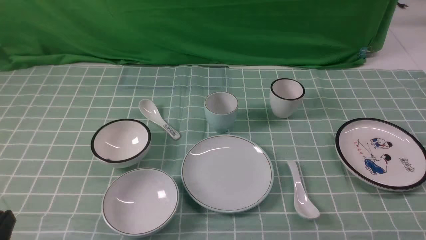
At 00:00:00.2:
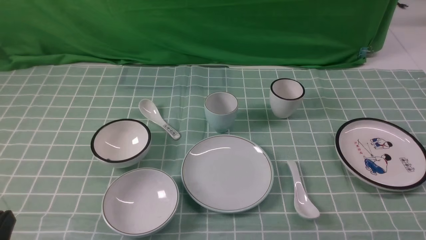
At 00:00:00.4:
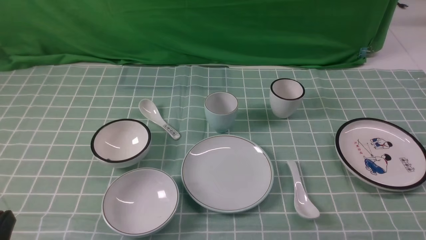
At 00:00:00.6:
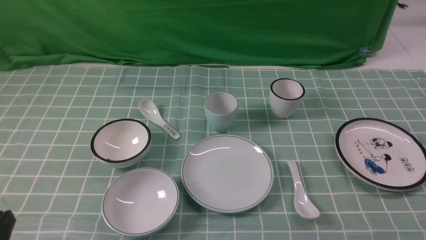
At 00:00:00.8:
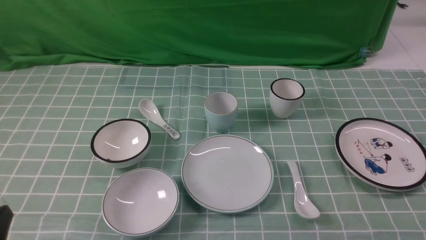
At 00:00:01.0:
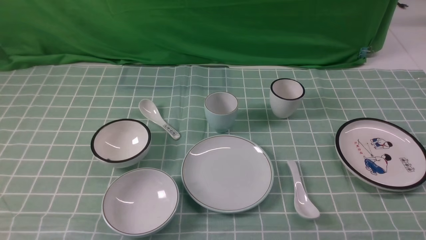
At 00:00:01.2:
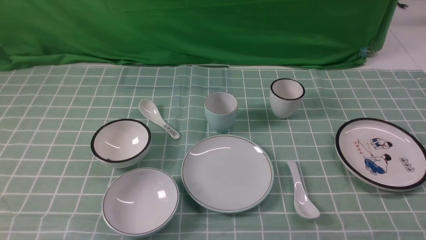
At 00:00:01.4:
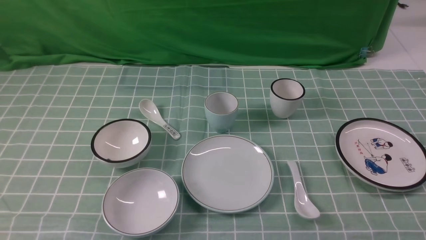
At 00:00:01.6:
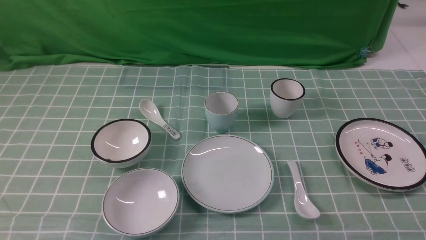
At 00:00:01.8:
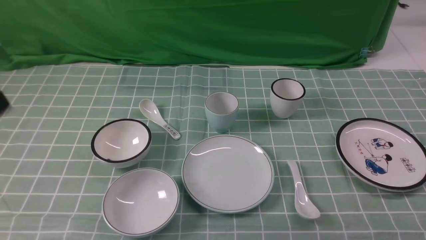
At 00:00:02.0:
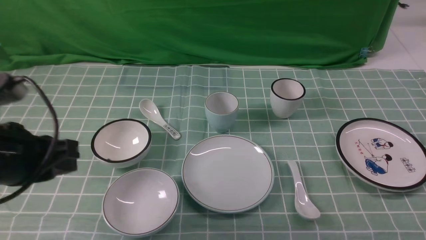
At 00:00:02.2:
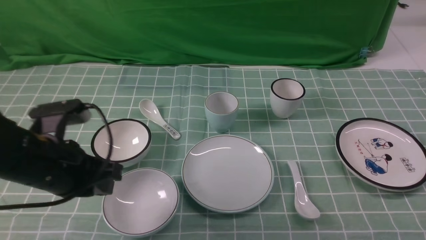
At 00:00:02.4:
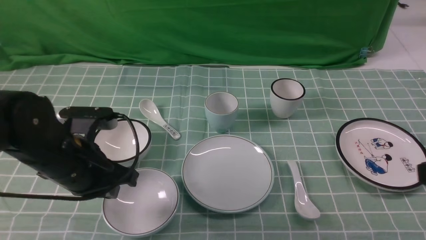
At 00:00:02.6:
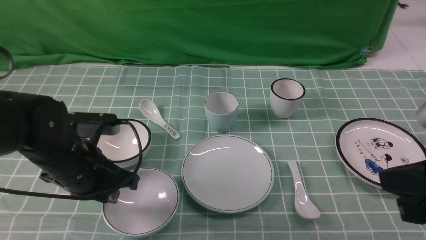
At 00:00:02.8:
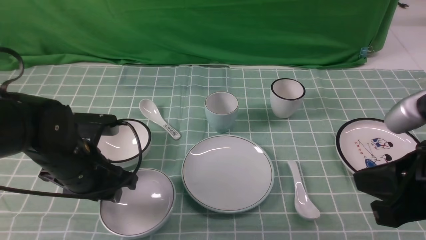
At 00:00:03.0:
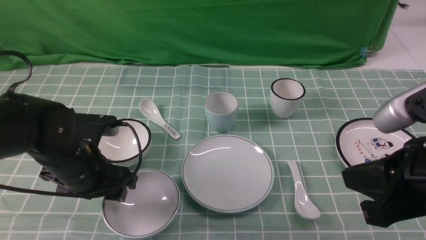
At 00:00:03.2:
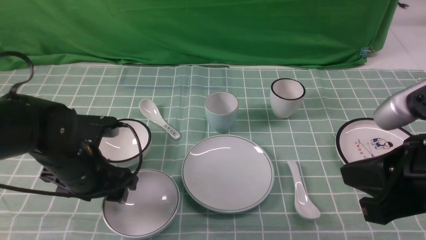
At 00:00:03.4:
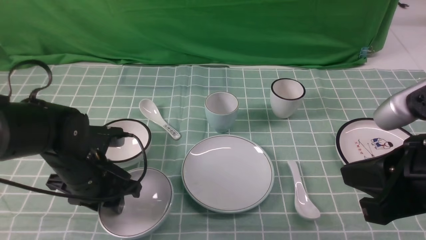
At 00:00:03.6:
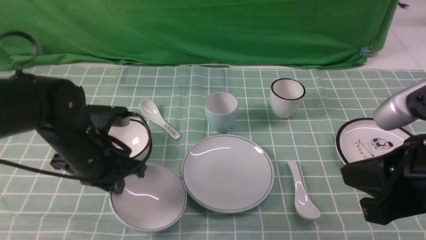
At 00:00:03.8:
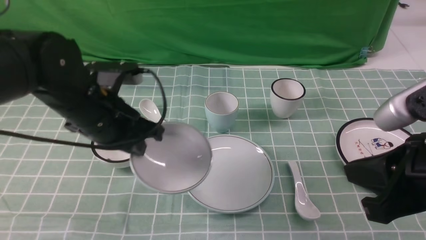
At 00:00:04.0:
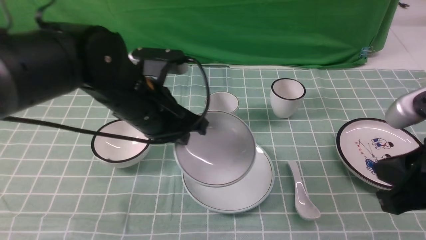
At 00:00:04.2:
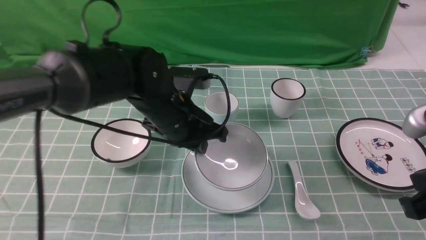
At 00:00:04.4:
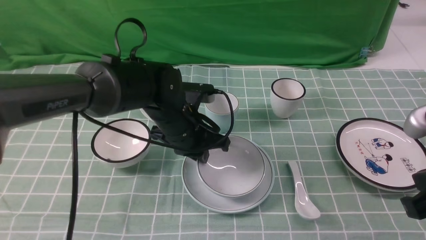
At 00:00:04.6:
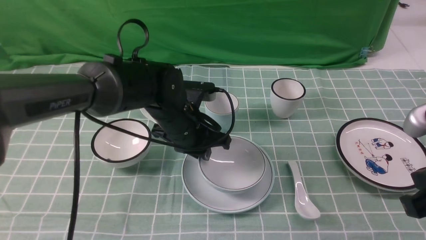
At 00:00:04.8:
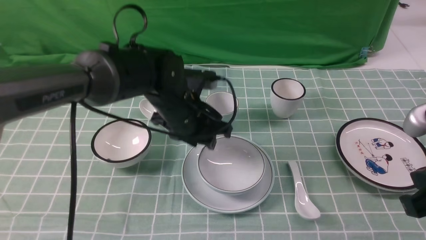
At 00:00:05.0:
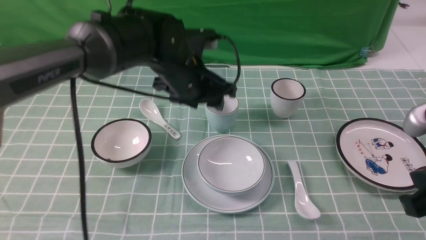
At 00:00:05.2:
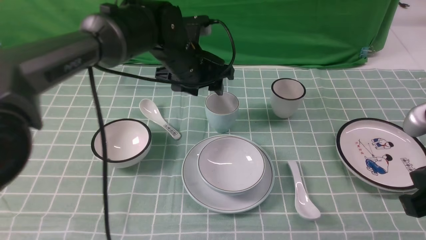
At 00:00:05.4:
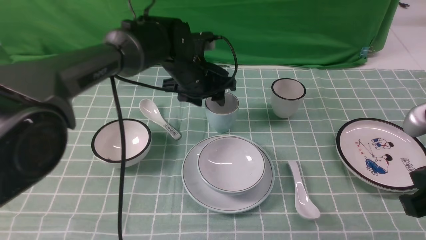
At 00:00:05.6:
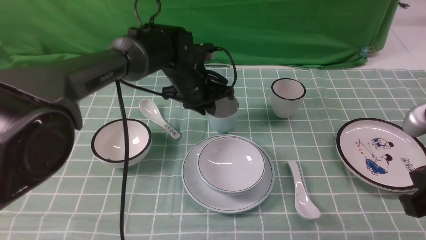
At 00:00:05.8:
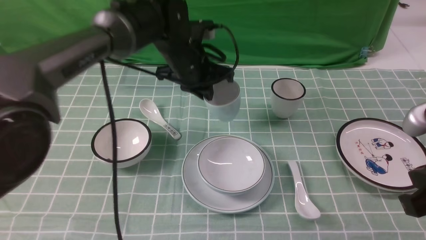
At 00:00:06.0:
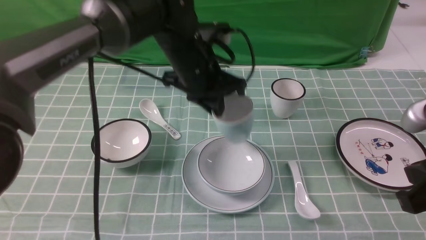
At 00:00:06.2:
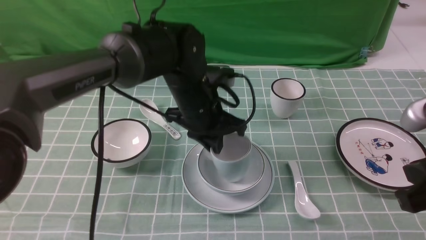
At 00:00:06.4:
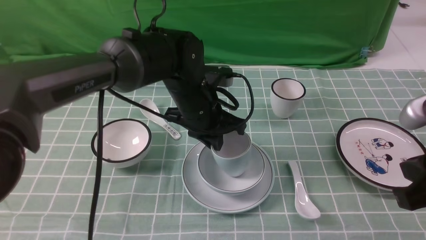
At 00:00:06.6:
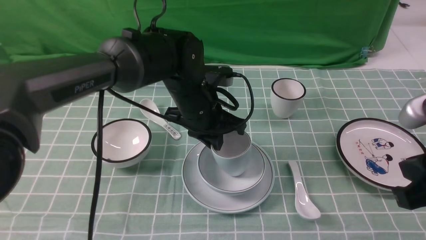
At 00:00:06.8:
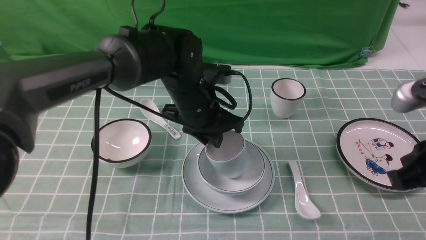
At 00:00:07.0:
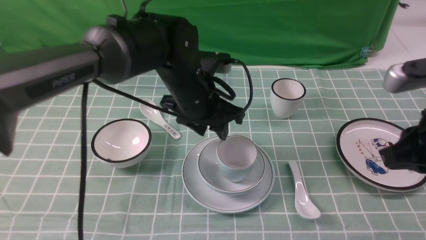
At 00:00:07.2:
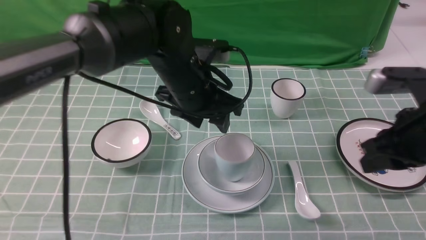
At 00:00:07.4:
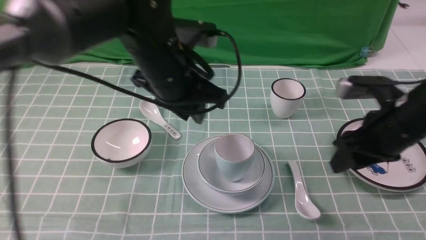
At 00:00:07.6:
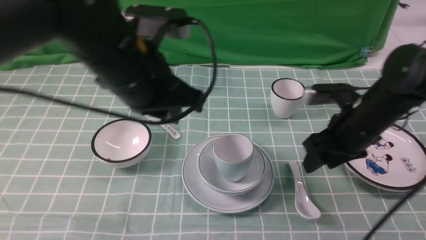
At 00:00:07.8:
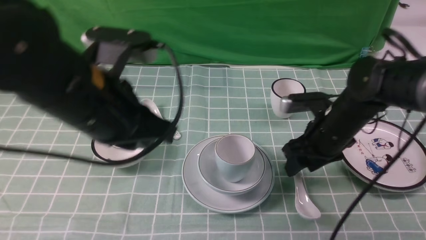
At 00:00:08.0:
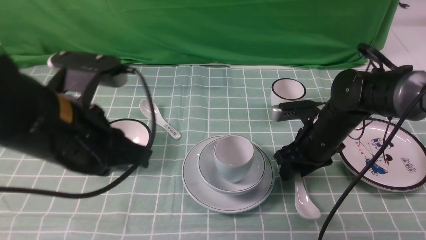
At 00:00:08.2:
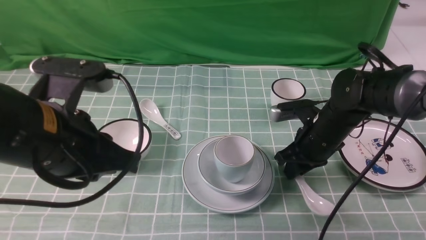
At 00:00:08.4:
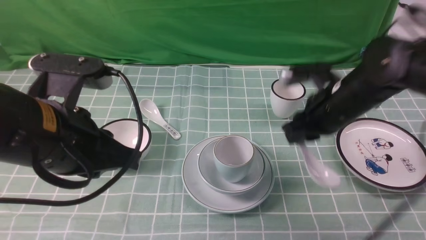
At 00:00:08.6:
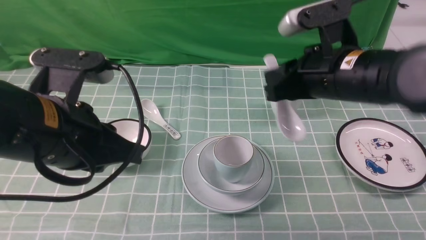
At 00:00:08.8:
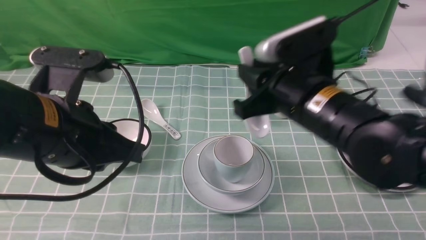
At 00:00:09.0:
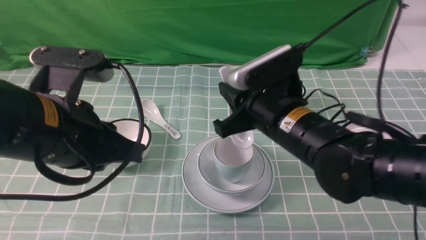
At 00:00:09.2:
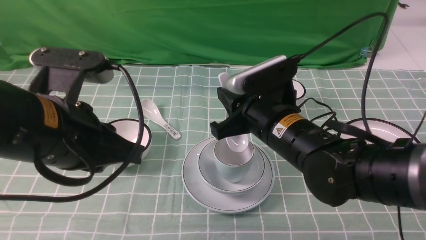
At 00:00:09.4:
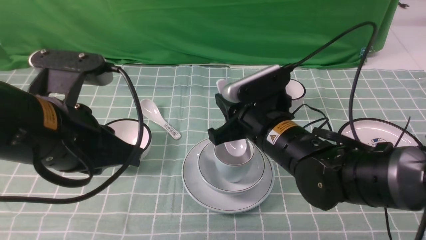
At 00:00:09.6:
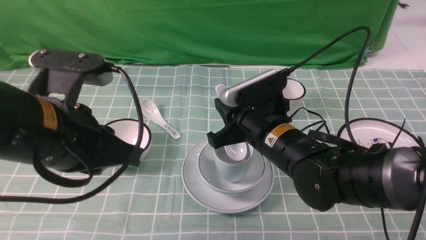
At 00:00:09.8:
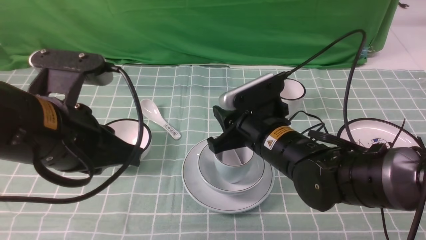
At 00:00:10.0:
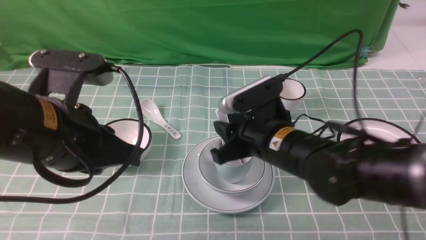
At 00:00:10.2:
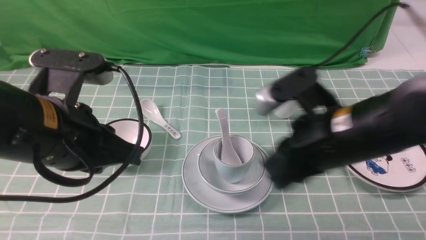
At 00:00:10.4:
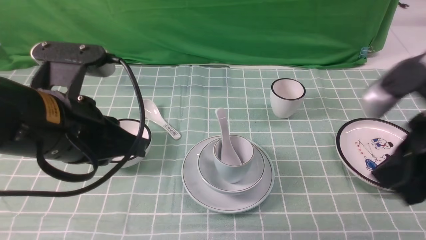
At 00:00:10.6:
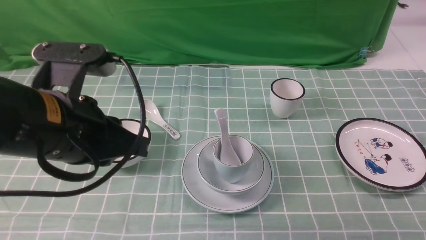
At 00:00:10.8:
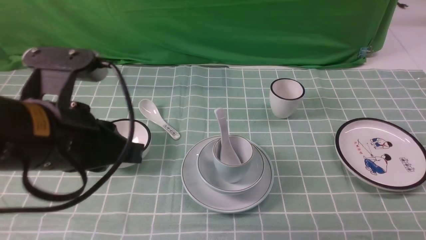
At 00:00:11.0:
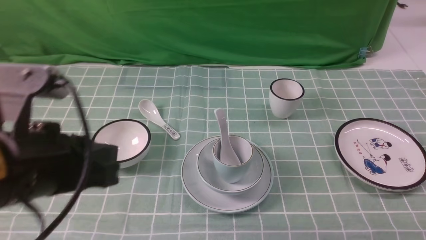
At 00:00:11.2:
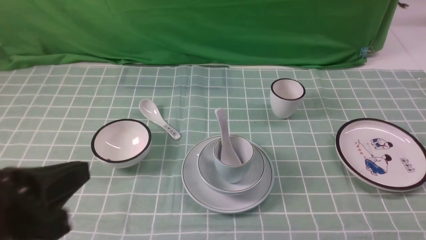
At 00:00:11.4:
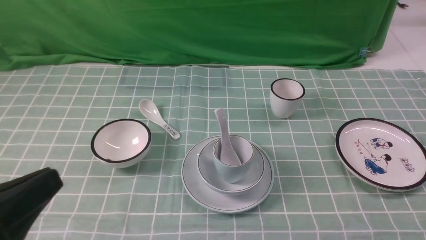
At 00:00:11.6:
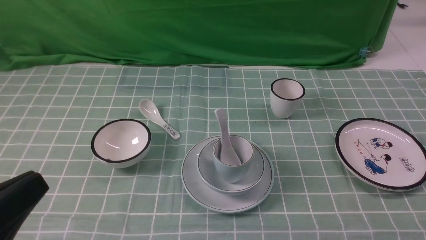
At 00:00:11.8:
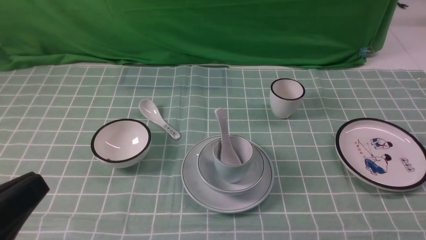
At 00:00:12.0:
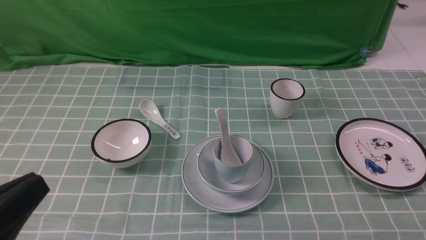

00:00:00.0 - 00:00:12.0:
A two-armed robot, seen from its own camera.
Task of the whole recording: place the bowls on the plates on the blue tablecloth, put the cups on the bowls, and place the spoons in the cups.
Step, 00:00:00.0 - 00:00:03.4: Grasp the bowl with the left gripper.
Step, 00:00:03.6 - 00:00:04.6: Place the bowl on the plate with the left gripper.
Step, 00:00:04.8 - 00:00:05.6: Grasp the cup with the left gripper.
Step, 00:00:05.8 - 00:00:06.8: Place the cup on the bowl with the left gripper.
Step, 00:00:07.0 - 00:00:08.0: Grasp the spoon with the right gripper.
Step, 00:00:08.2 - 00:00:09.8: Place the spoon on the cup with the right gripper.
00:00:01.6 - 00:00:03.0: The left gripper travels forward and downward by some 25 cm, and opens its fingers. The right gripper is displaced to the left, upward and forward by approximately 20 cm, and closes its fingers.
00:00:03.0 - 00:00:04.4: The left gripper is displaced to the right and forward by some 15 cm, and closes its fingers.
00:00:04.4 - 00:00:06.0: The left gripper goes some 10 cm forward, and opens and closes again.
00:00:06.0 - 00:00:07.6: The right gripper moves forward and downward, approximately 20 cm, and opens up. The left gripper heads backward and upward, covering about 15 cm, and opens and closes again.
00:00:07.6 - 00:00:09.0: The left gripper heads backward and to the left, covering approximately 15 cm. Meanwhile the right gripper travels to the left by approximately 10 cm, travels downward and back again, about 5 cm each way, and closes.
00:00:09.0 - 00:00:10.4: The right gripper moves to the right and backward, some 10 cm.
00:00:10.4 - 00:00:12.0: The left gripper is displaced backward and to the left by roughly 15 cm, while the right gripper is displaced backward and to the right by approximately 25 cm.

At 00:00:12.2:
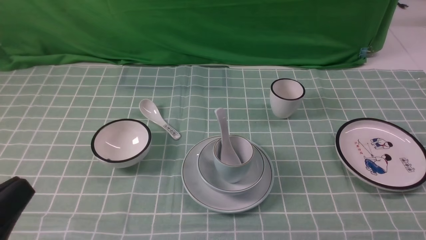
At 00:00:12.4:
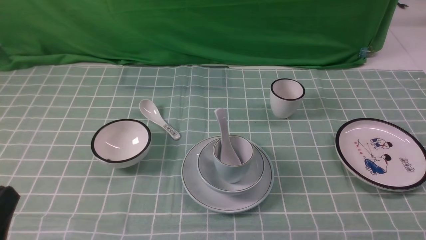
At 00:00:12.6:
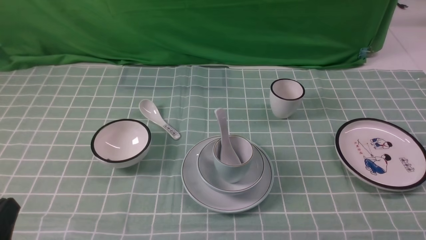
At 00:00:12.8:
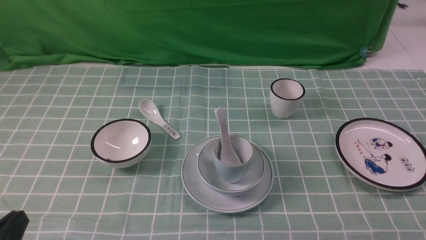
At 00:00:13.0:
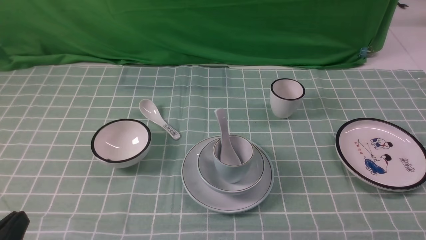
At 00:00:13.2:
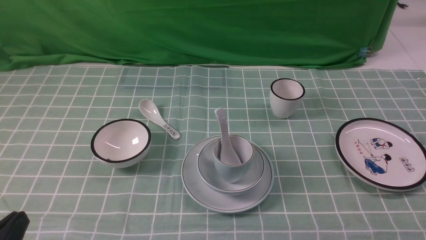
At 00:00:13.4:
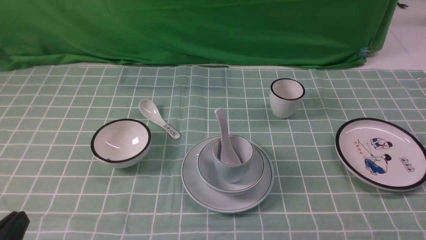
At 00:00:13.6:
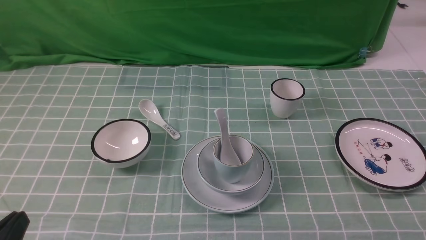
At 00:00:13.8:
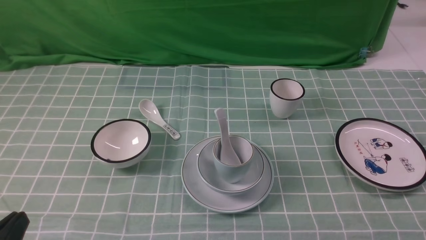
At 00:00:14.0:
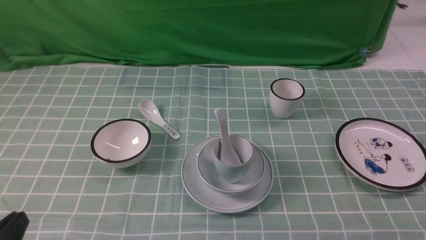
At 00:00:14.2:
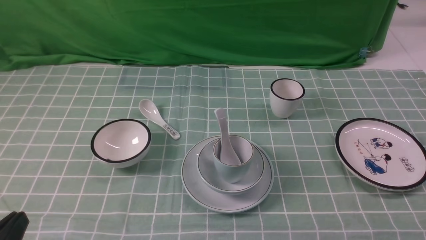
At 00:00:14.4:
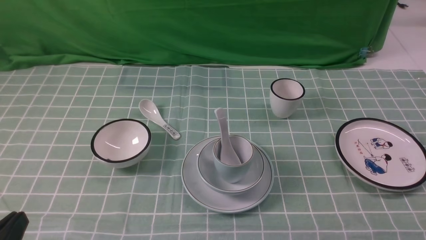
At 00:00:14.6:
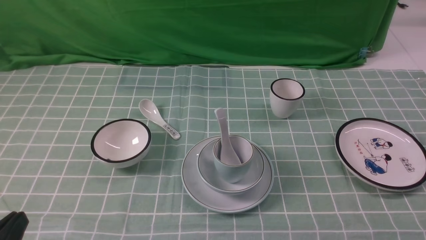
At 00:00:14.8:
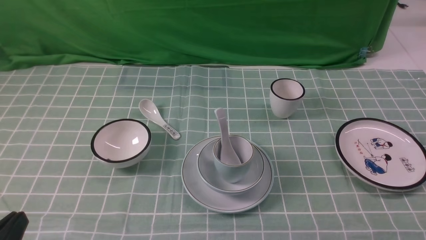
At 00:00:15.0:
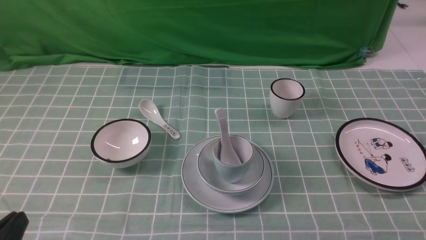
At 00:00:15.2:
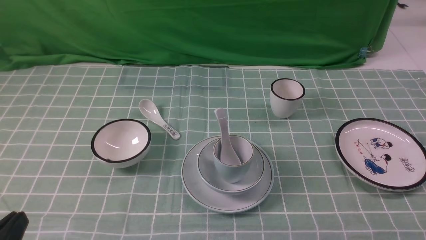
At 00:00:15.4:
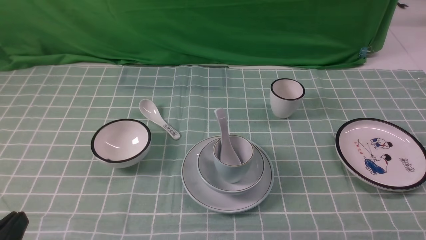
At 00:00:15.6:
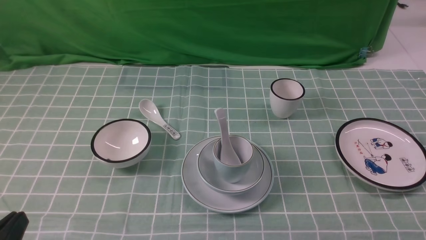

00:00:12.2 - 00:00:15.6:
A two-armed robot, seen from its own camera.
Task of the whole recording: place the bowls on the plates on the blue tablecloth, put the cups on the bowls, and place the spoons in the cups.
00:00:12.2 - 00:00:13.8: The left gripper travels downward by some 10 cm.
